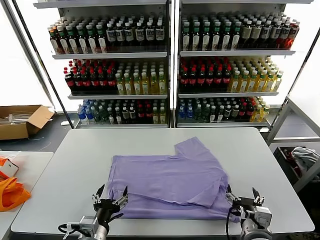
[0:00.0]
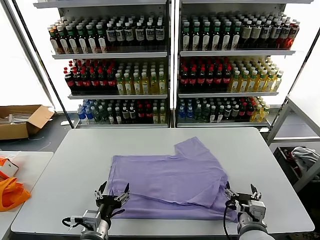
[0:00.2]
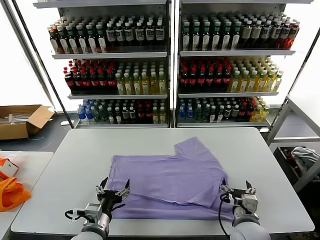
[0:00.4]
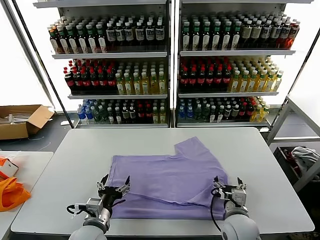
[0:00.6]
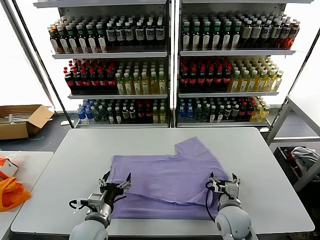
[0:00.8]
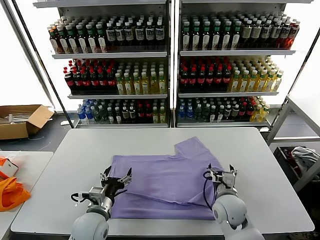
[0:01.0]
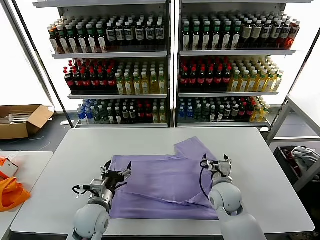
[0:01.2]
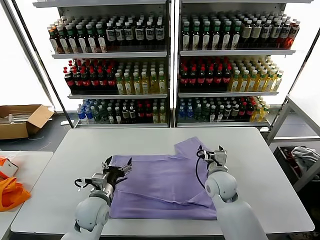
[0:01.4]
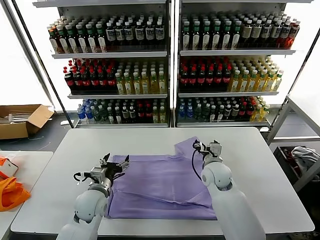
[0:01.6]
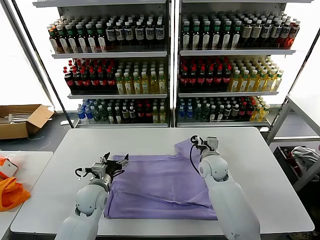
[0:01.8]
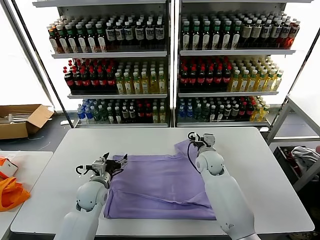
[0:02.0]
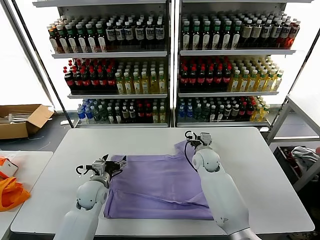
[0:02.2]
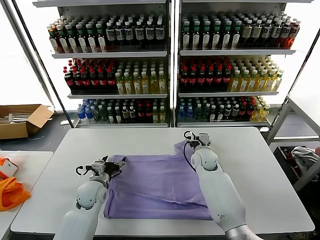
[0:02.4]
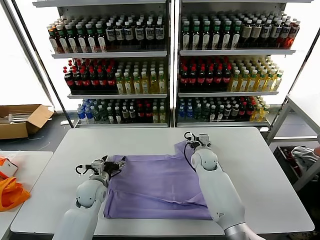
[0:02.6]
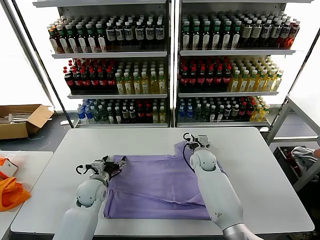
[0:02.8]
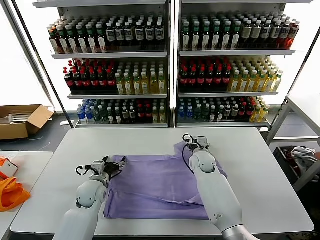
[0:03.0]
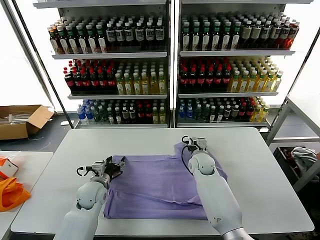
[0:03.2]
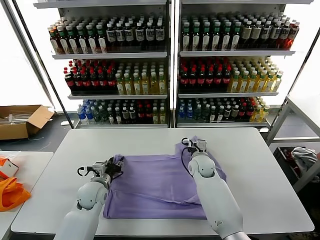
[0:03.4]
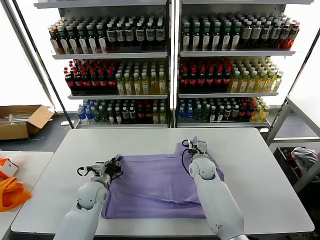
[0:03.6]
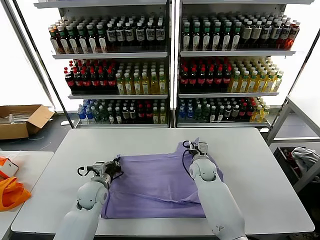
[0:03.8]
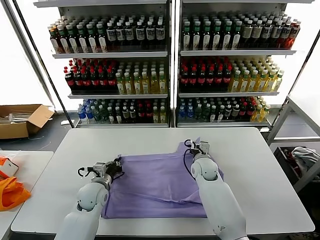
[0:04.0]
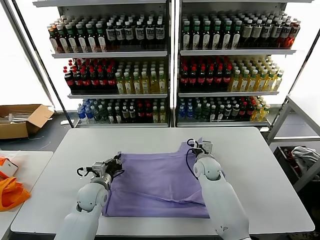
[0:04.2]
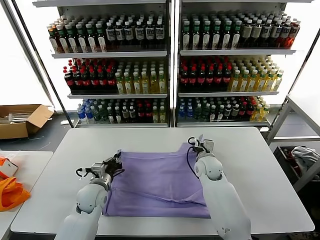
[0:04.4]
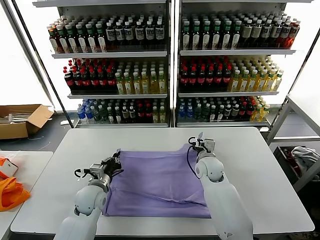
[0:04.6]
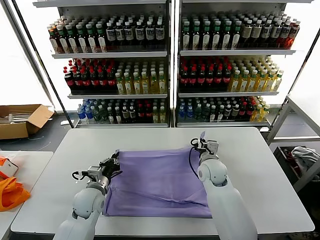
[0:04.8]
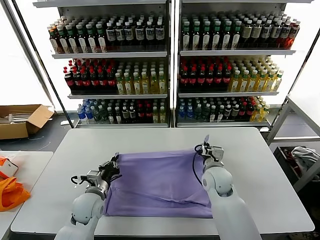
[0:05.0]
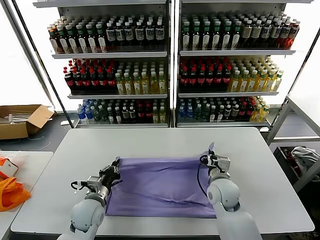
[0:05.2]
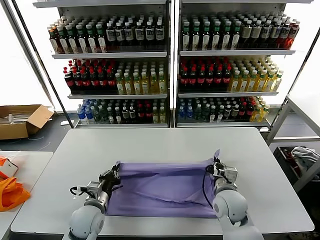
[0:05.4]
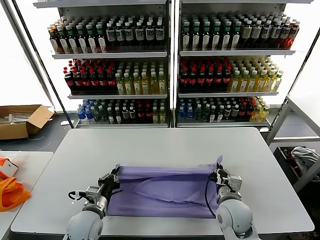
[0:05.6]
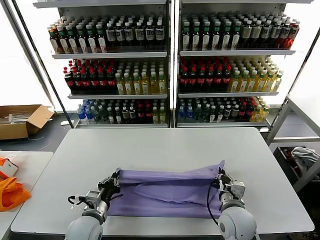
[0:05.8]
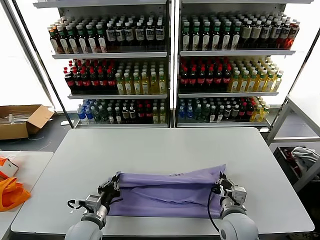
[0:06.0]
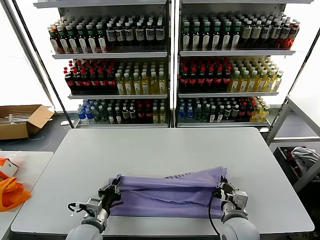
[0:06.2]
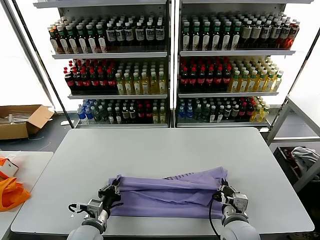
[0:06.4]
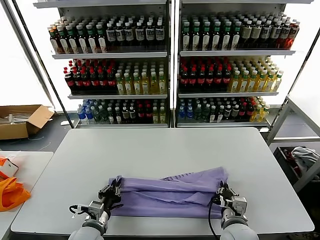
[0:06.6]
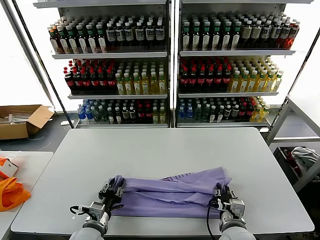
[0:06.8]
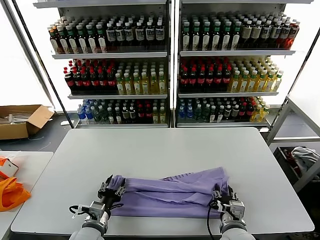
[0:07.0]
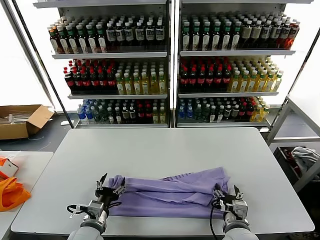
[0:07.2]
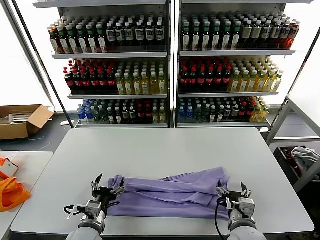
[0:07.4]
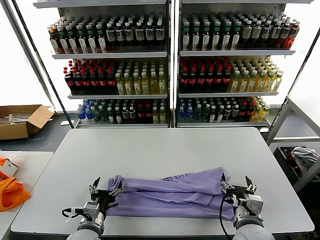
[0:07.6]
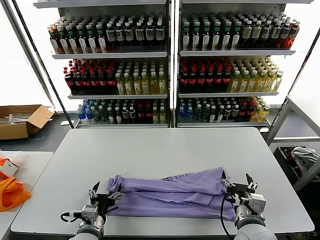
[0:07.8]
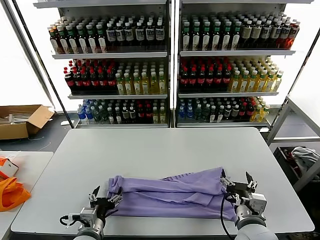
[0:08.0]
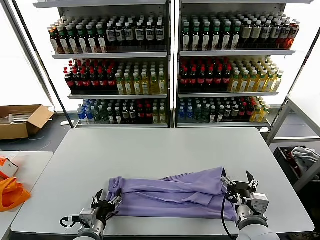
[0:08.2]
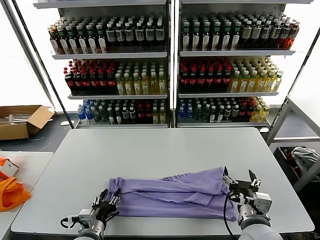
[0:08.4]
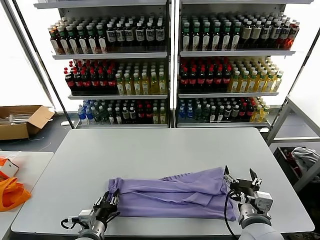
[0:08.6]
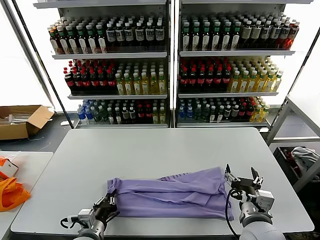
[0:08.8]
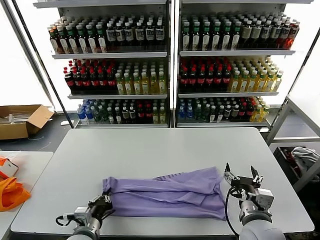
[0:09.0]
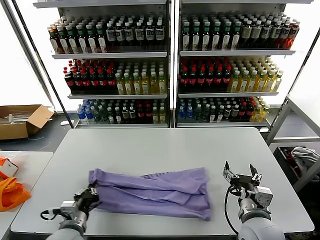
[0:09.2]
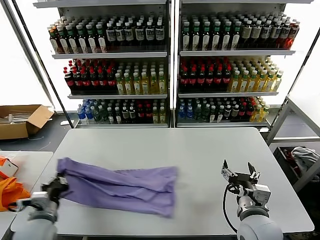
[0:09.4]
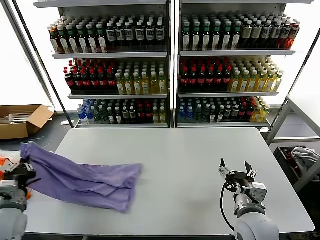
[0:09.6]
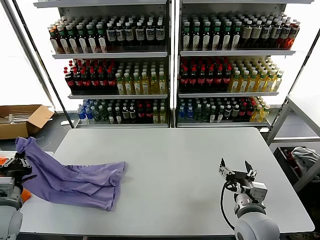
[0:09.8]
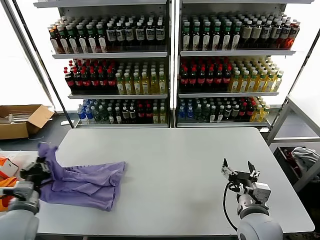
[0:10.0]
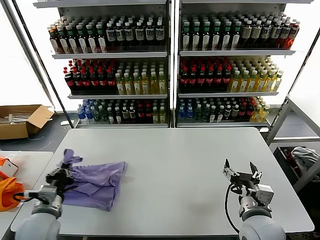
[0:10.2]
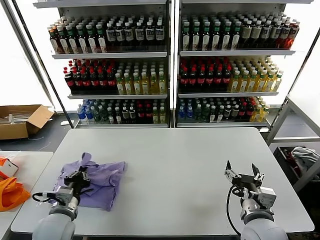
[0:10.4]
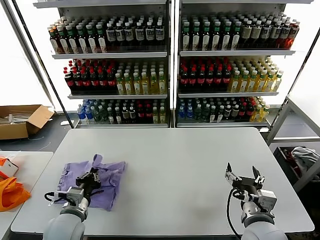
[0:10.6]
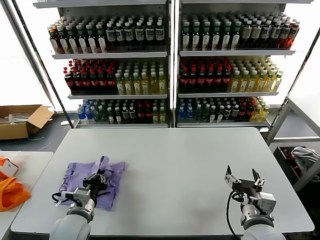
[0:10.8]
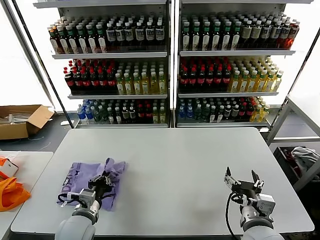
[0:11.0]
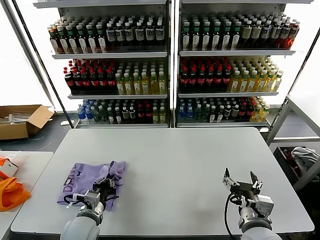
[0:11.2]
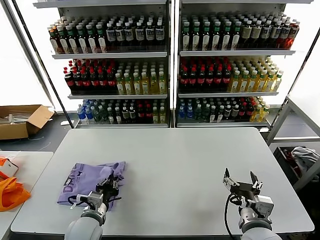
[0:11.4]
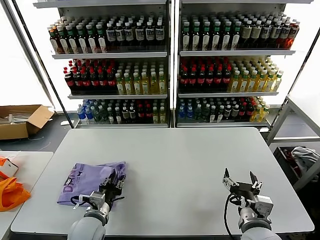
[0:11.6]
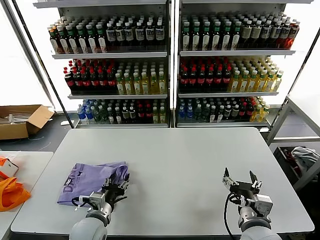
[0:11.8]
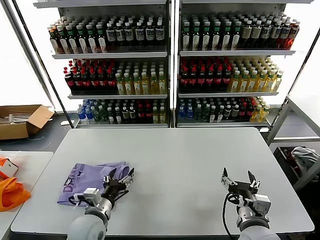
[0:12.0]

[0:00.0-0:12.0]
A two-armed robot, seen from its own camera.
Task of the whole recording: fold and organize the clothes.
Step, 0:00.0 to 0:04.2: use both grippers simultaneously to clamp the upper edge of the clothing fabric.
Step, 0:04.4 to 0:07.4: use both grippers to drag the upper edge of the fabric backward and fold it over the lower edge.
Step, 0:07.6 to 0:08.8: use the left gripper to clamp the left edge of the fabric.
Step, 0:09.2 to 0:12.0: use the left gripper to drag the left edge of the fabric to the left and folds it over the right edge.
0:00.0 to 0:01.6: Both grippers move forward, roughly 20 cm.
0:01.6 to 0:03.0: Both grippers travel together forward, approximately 5 cm.
0:03.0 to 0:04.4: The right gripper closes up. Meanwhile the left gripper closes.
0:04.4 to 0:06.0: The right gripper heads backward, covering approximately 20 cm. Meanwhile the left gripper travels backward by some 10 cm.
0:06.0 to 0:07.6: The right gripper changes place by roughly 5 cm, and opens up. The left gripper opens.
0:07.6 to 0:09.0: The left gripper closes.
0:09.0 to 0:10.4: The left gripper heads upward, covering roughly 5 cm, and goes to the left and returns, about 20 cm each way.
0:10.4 to 0:12.0: The left gripper shifts roughly 10 cm to the right, and opens up.

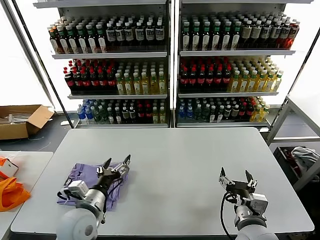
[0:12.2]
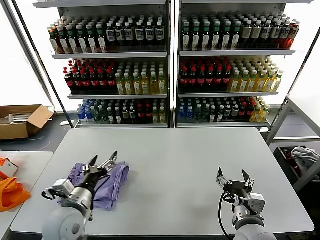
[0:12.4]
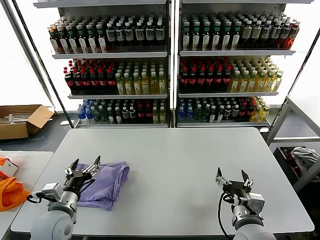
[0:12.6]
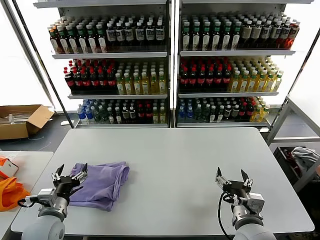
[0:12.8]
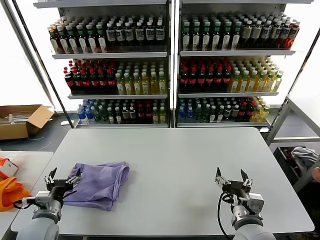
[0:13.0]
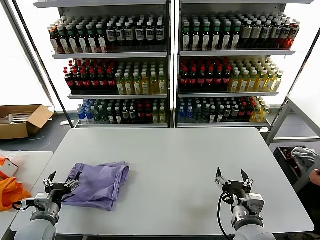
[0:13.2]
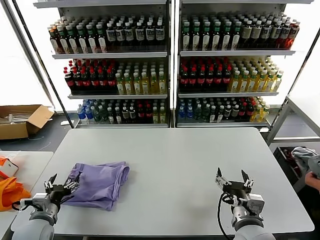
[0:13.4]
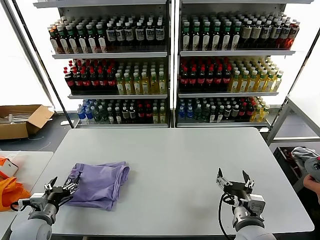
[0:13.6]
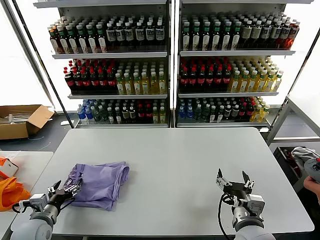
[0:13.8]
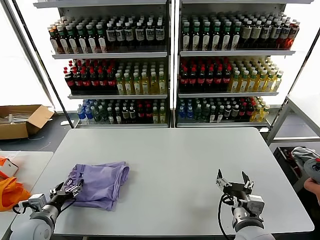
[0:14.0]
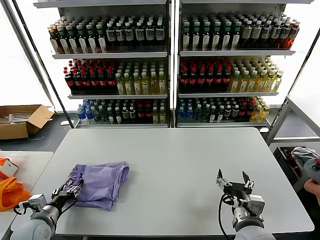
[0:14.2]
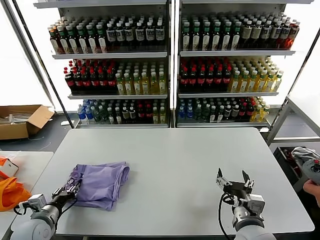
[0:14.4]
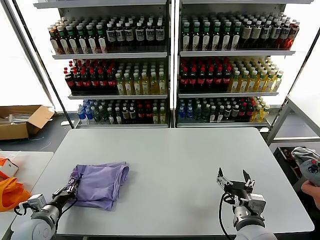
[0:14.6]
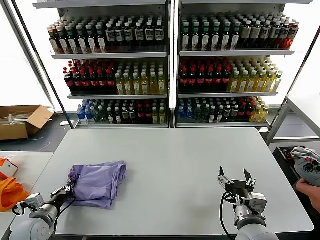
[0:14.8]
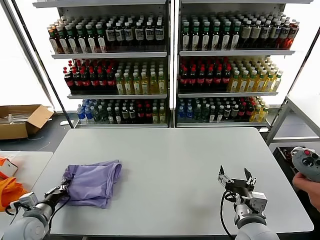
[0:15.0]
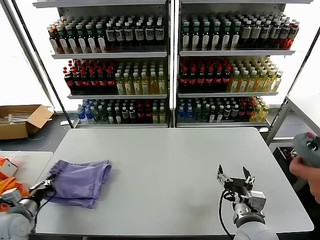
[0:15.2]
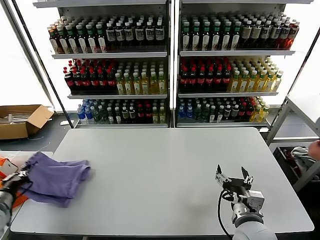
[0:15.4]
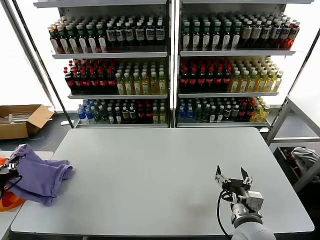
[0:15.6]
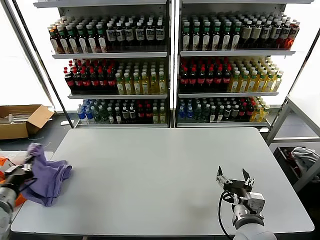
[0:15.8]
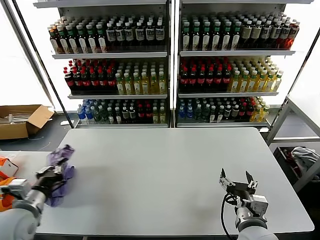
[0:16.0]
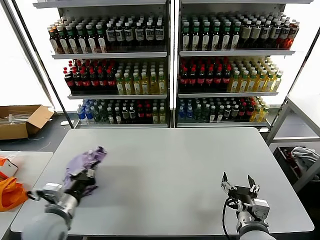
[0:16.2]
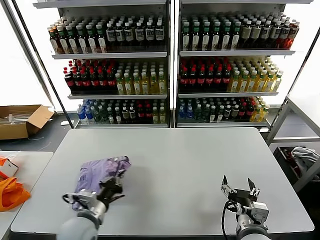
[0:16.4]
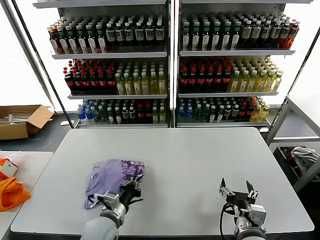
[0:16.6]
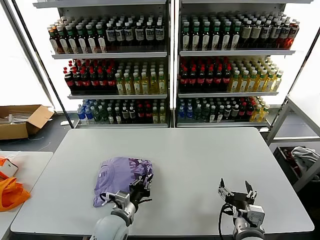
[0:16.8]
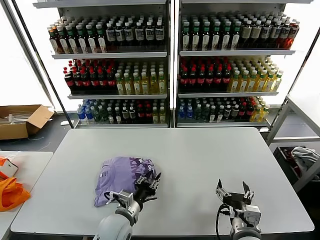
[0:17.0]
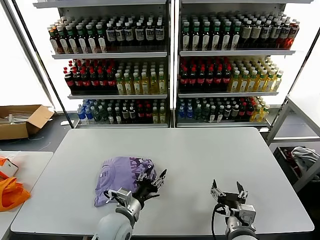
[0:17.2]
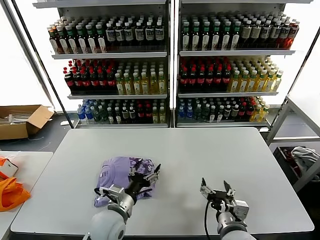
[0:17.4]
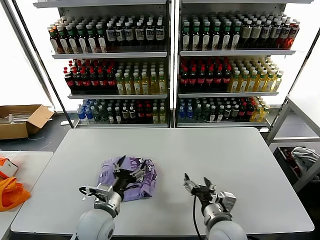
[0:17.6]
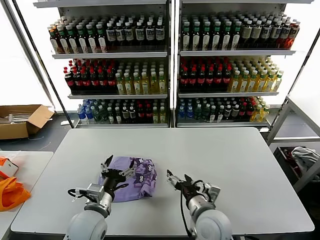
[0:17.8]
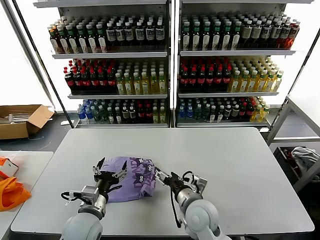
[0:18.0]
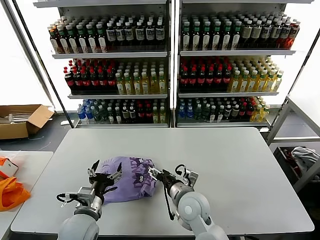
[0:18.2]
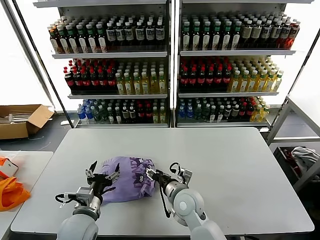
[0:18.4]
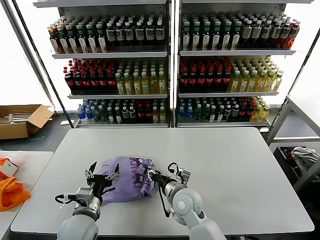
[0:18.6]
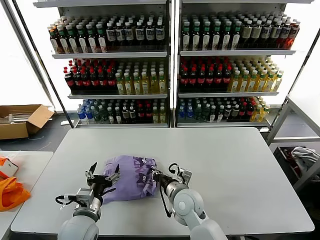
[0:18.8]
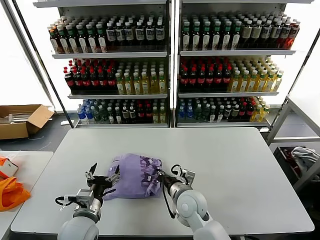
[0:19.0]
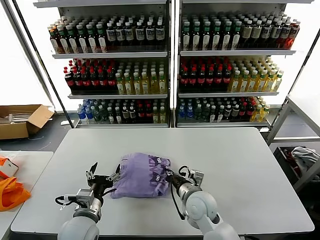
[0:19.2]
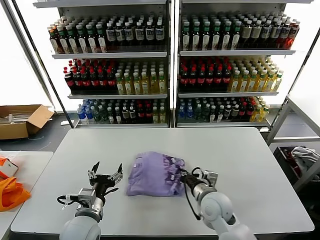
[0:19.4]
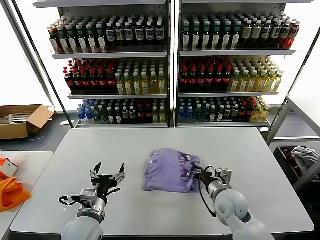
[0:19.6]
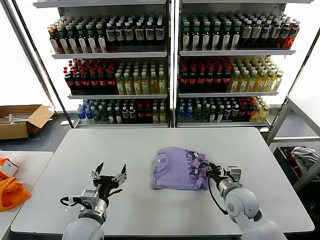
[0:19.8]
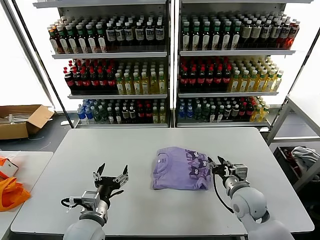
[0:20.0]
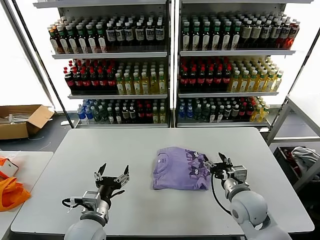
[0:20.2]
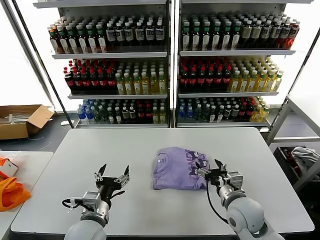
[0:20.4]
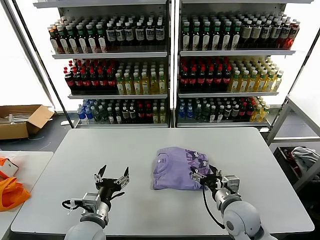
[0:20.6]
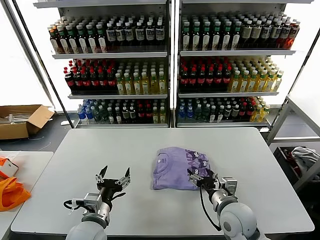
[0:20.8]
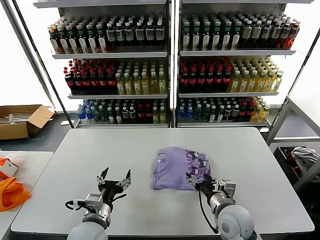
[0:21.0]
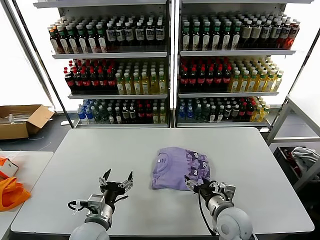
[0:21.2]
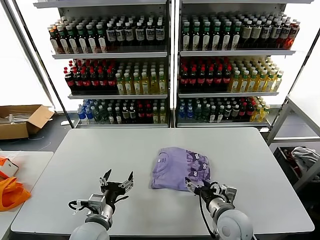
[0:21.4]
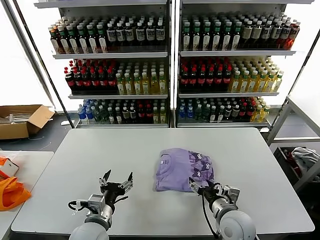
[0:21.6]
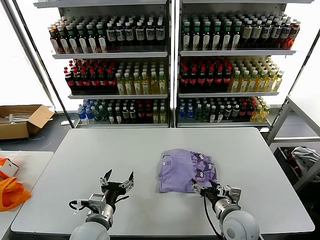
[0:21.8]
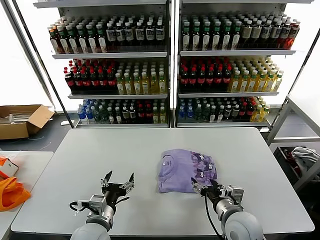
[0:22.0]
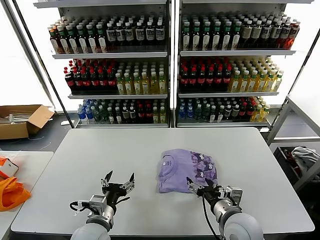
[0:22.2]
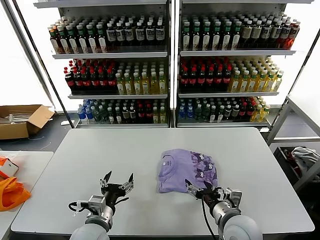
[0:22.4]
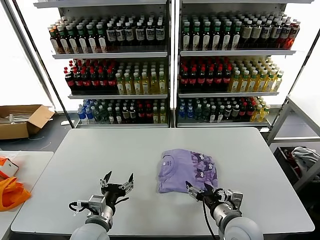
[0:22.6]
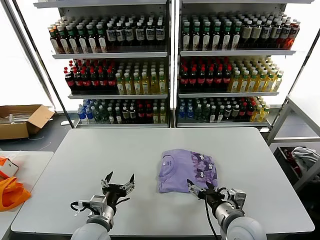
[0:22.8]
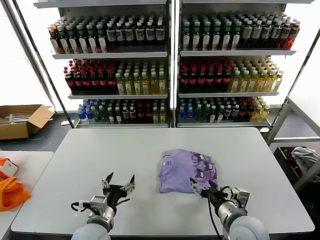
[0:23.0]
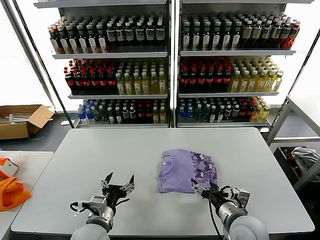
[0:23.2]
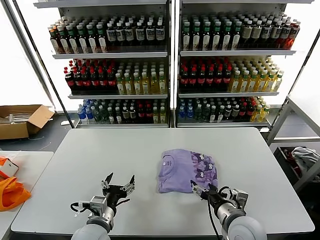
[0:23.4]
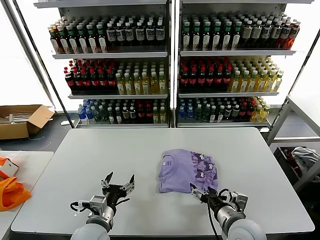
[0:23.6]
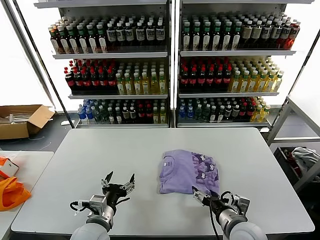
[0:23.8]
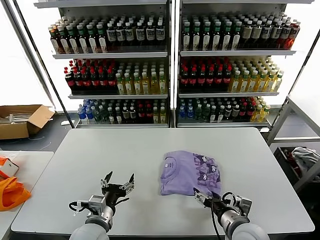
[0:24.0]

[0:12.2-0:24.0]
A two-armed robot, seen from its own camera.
Task of the whole recording: fold and organize the clothes.
Step, 0:12.2 to 0:17.2: Flip the folded clothes over with left gripper.
0:12.2 to 0:13.6: The left gripper goes roughly 15 cm to the left.
0:13.6 to 0:15.2: The left gripper goes approximately 5 cm to the left, and closes its fingers.
0:15.2 to 0:16.6: The left gripper shifts roughly 25 cm to the right.
0:16.6 to 0:18.2: The left gripper shifts by about 5 cm, and opens. Meanwhile the right gripper is displaced forward and to the left by roughly 20 cm.
0:18.2 to 0:19.6: The right gripper moves to the right, roughly 10 cm, and closes up.
0:19.6 to 0:21.0: The right gripper heads backward, covering roughly 5 cm, and opens its fingers.
0:21.0 to 0:24.0: The grippers move only a little.
